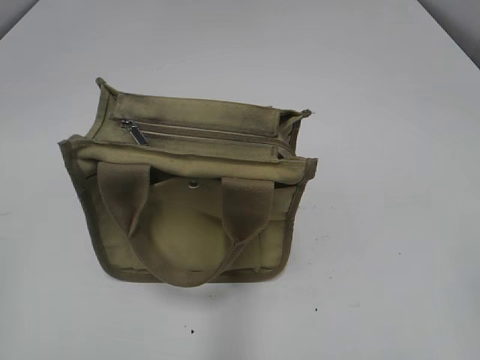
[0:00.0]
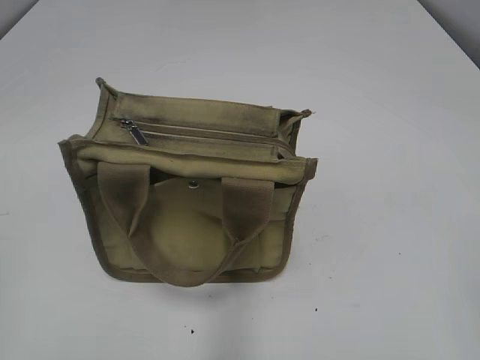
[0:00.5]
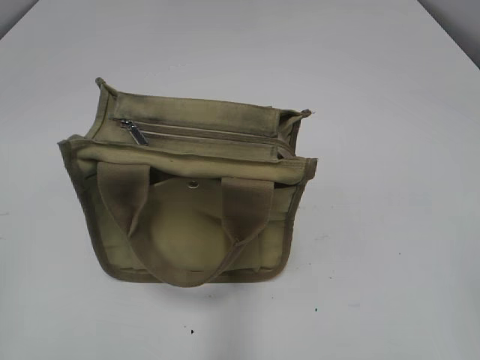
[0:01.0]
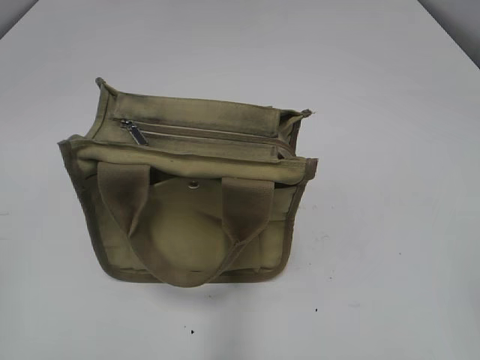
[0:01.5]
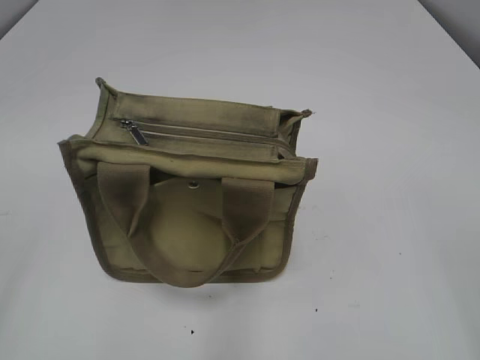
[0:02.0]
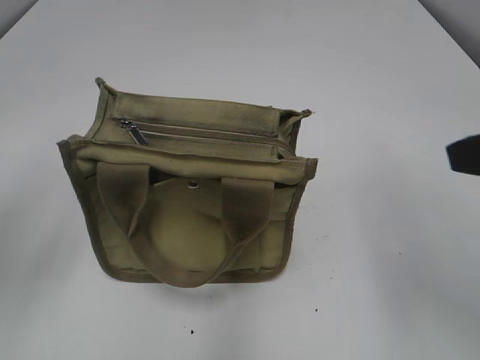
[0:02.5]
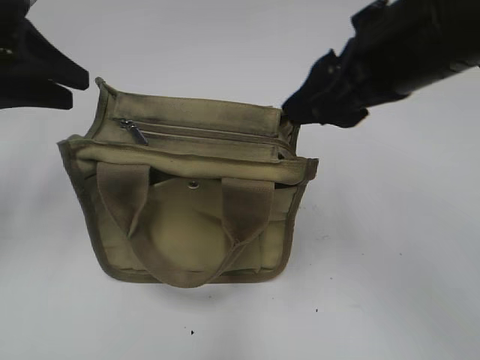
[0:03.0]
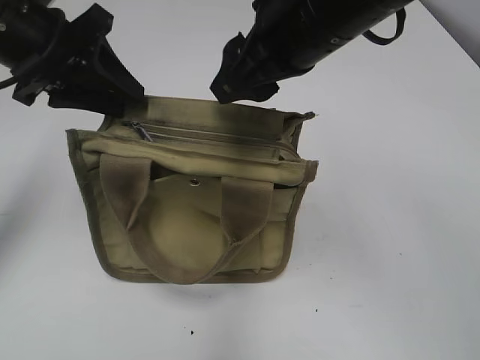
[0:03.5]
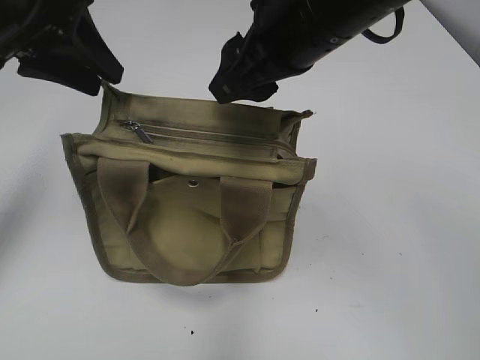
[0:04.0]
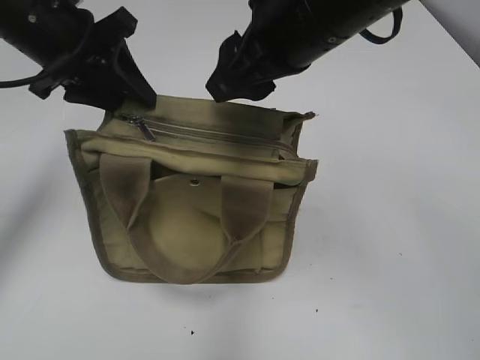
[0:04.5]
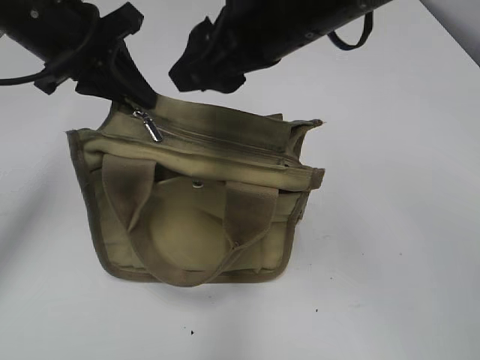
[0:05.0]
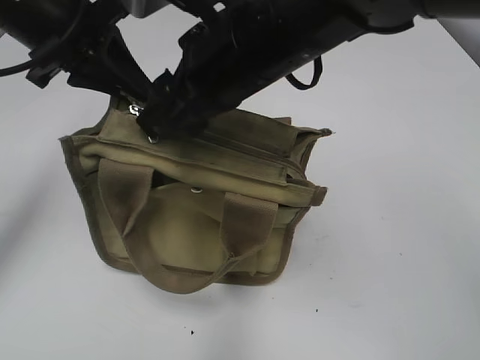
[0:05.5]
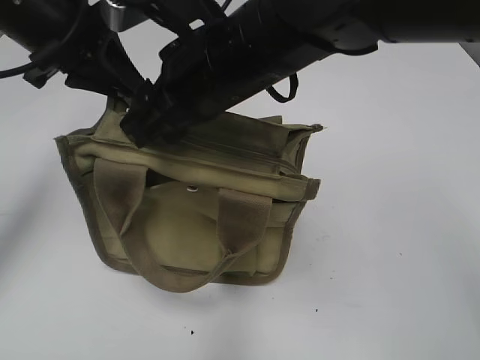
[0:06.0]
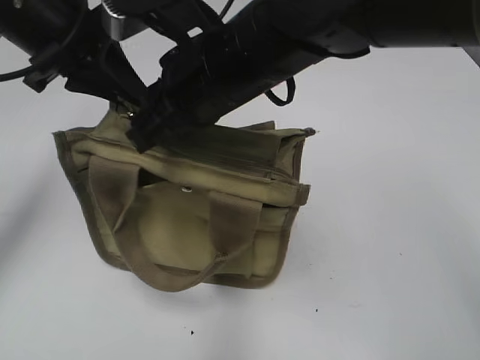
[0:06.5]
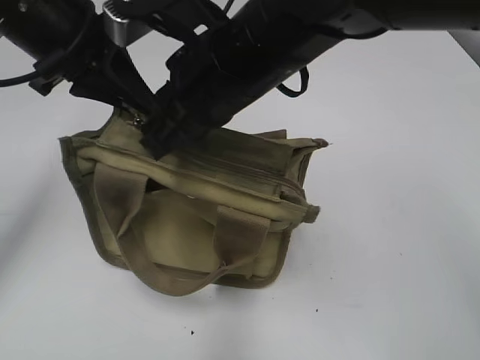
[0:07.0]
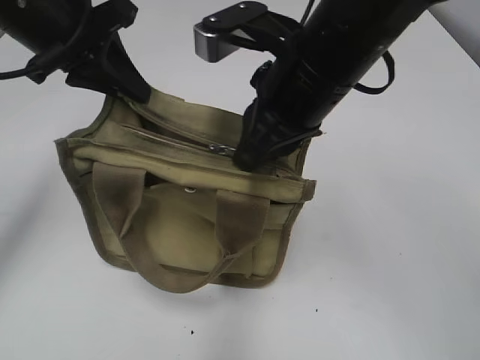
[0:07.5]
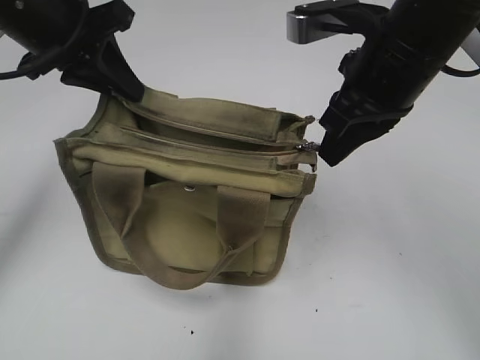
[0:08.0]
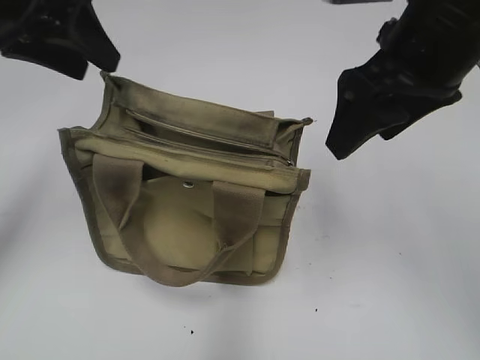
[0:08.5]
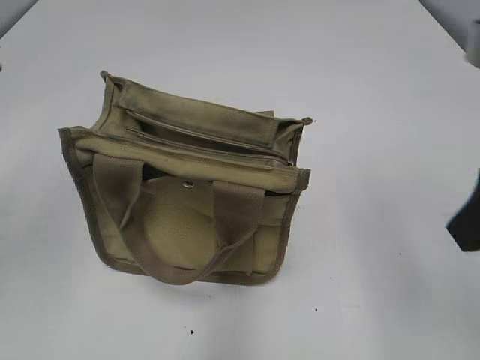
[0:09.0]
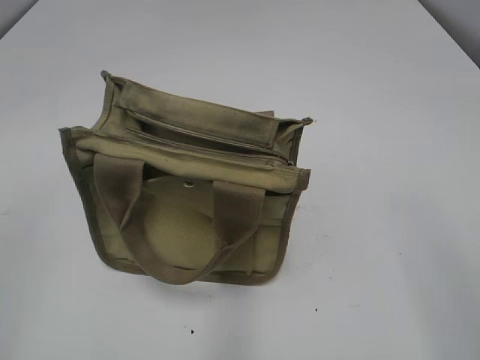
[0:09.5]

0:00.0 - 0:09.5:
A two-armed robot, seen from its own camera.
Step, 0:00.0 - 0:08.0: Pull open the zipper with your right hand.
0:02.0 - 0:04.0: The right gripper is displaced forward and to the left by roughly 35 cm; the left gripper moves forward, about 30 cm.
0:04.0 - 0:05.5: The right gripper changes place by approximately 5 cm, while the left gripper closes up.
0:05.5 - 0:07.5: The right gripper moves some 5 cm, and closes up.
0:07.5 - 0:09.5: The right gripper is displaced backward and to the right by roughly 30 cm, and opens up. Meanwhile the left gripper moves backward and to the left, approximately 30 cm, and opens its fingers.
